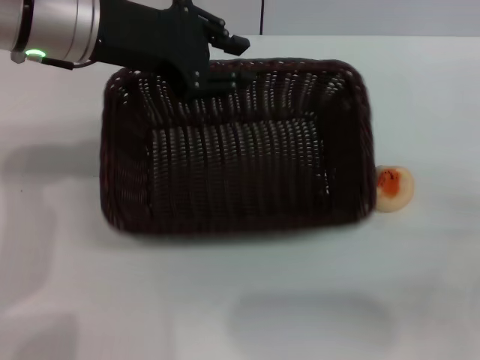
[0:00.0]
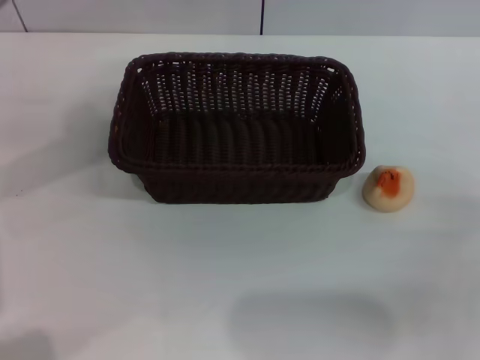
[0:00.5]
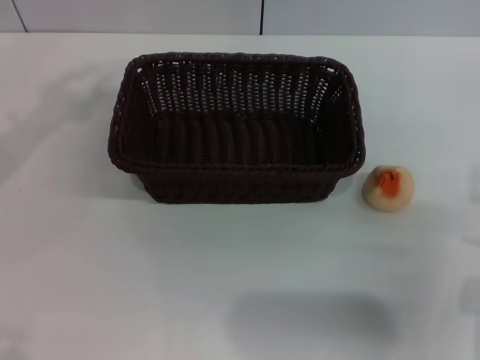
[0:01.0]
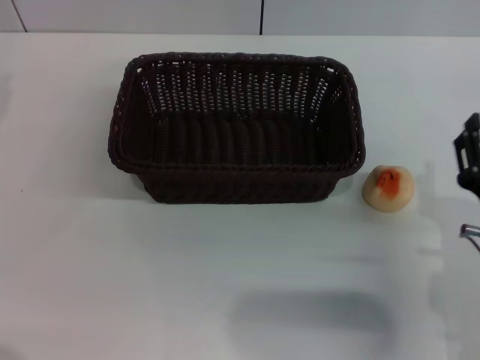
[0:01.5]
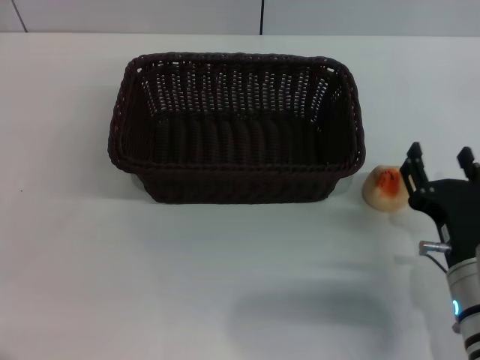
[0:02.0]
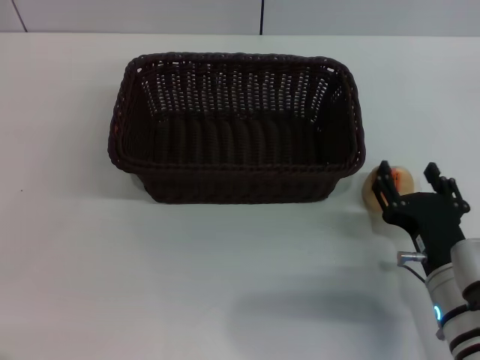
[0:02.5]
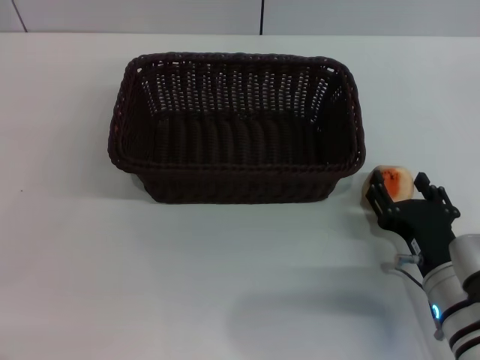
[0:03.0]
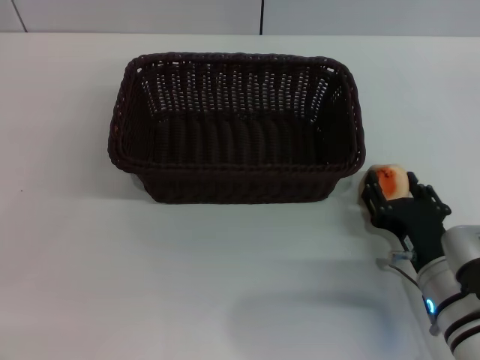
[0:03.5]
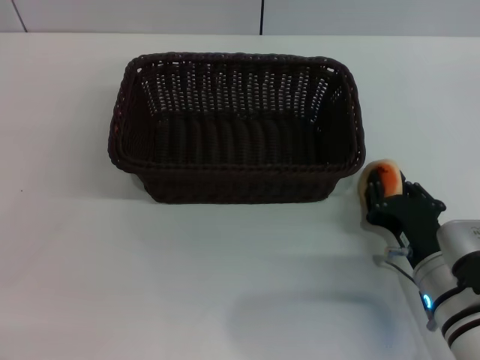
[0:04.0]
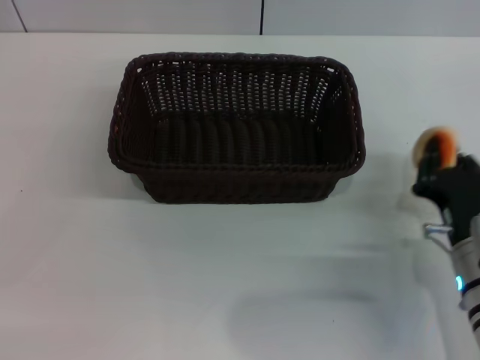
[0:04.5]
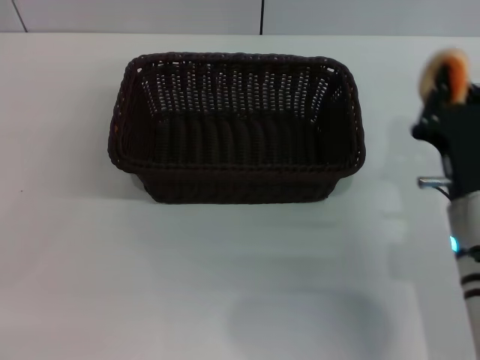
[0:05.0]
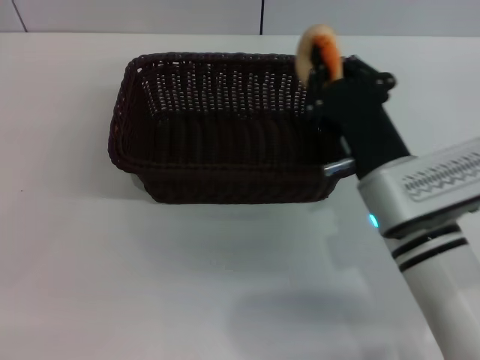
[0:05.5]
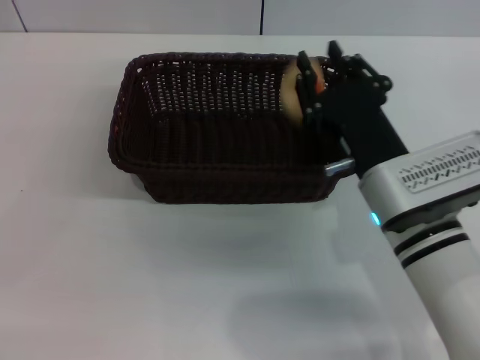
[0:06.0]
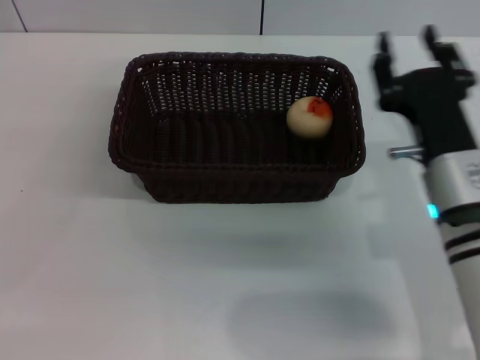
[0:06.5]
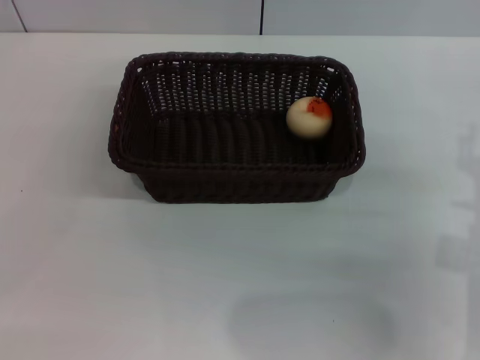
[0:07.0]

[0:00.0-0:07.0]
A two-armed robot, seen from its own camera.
Step, 0:00.5 to 0:04.5: Pick up the egg yolk pastry with the left gripper.
0:00.0 to 0:02.0: The right gripper travels to the left and downward by roughly 15 cm. Meanwhile the left gripper moves to the left, roughly 25 cm.
0:02.0 to 0:03.5: There are only small adjustments of the grippers.
0:03.5 to 0:05.0: The right gripper travels upward by some 5 cm, and closes its fingers.
0:05.0 to 0:07.0: The right gripper heads to the right, covering about 5 cm, and opens up.
